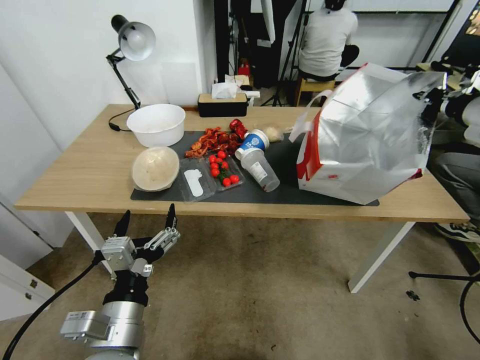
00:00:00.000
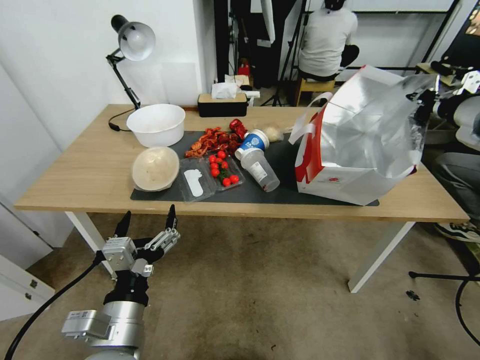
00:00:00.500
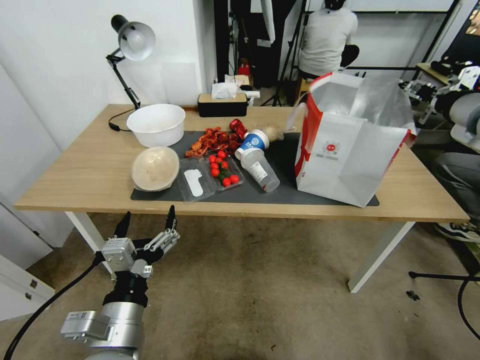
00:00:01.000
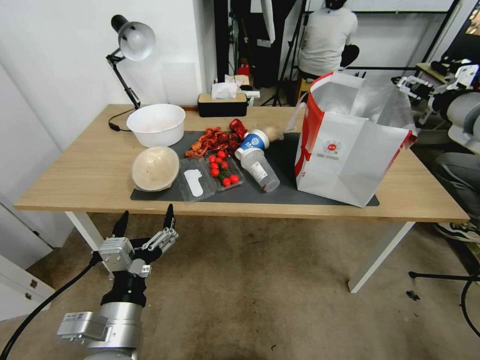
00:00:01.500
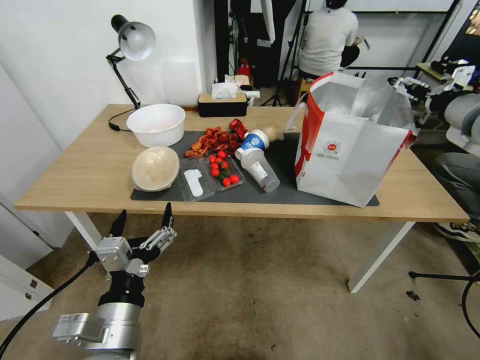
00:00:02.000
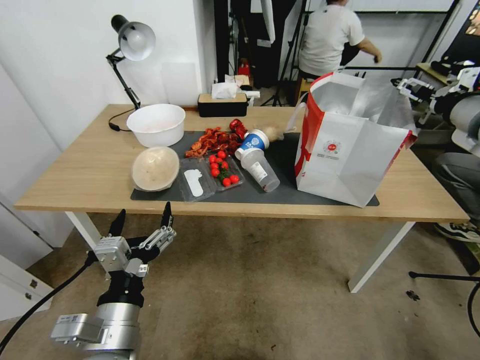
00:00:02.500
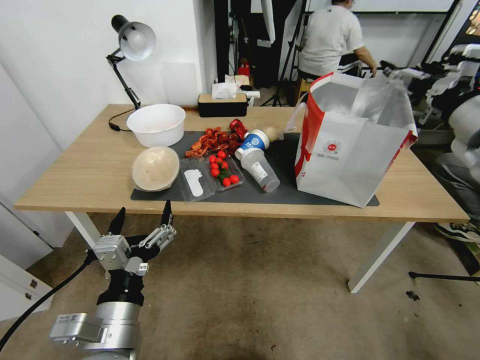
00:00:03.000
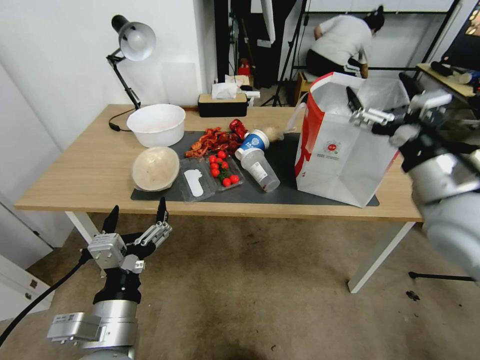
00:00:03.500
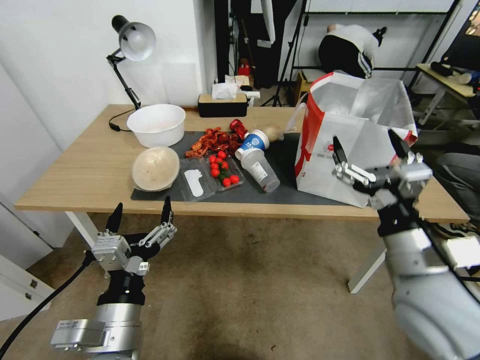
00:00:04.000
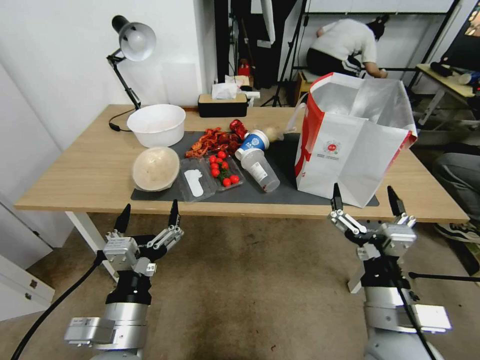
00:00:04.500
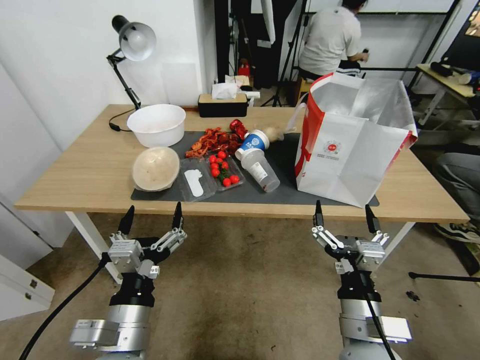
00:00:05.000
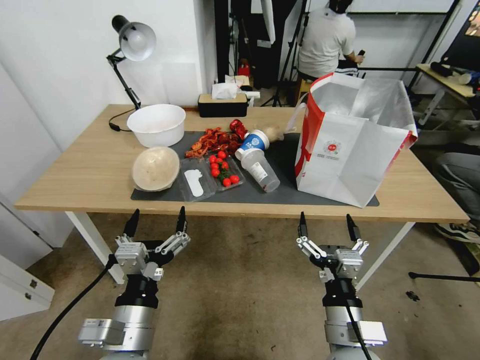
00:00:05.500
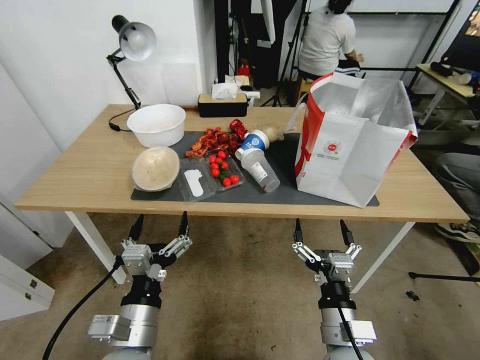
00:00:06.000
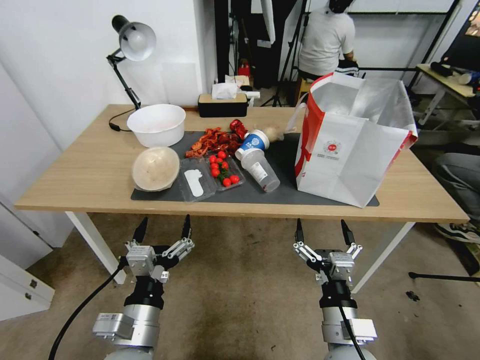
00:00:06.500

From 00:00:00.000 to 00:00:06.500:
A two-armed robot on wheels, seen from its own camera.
Task of the whole recording: Pick up the food delivery bag from the floor and place it on the table.
From 00:00:00.000 to 00:00:02.000: The right gripper opens up.
From 00:00:02.000 to 00:00:04.500: The right gripper is displaced backward, downward and to the left by roughly 40 cm.
From 00:00:04.500 to 00:00:06.500: The right gripper is displaced downward by about 10 cm.
